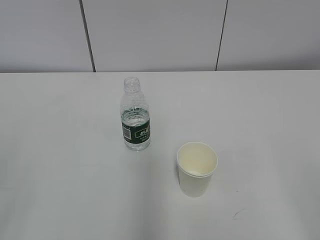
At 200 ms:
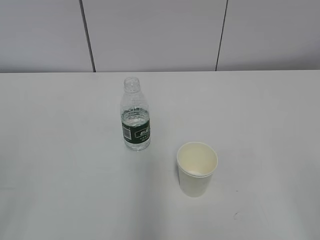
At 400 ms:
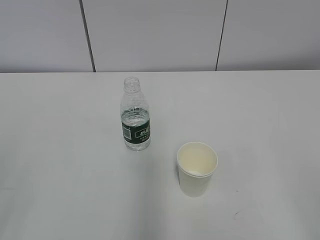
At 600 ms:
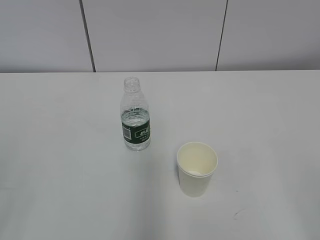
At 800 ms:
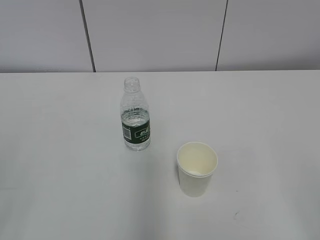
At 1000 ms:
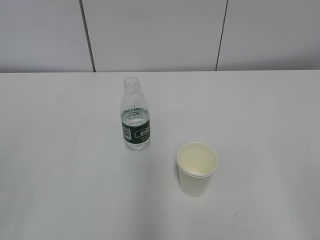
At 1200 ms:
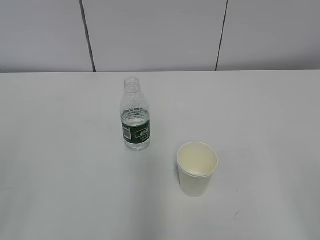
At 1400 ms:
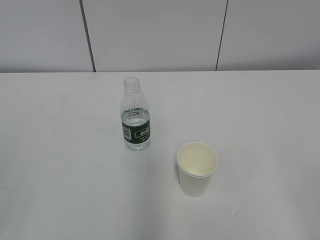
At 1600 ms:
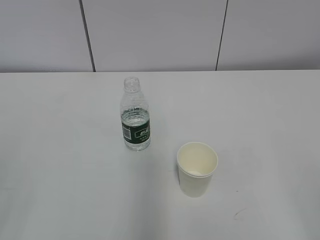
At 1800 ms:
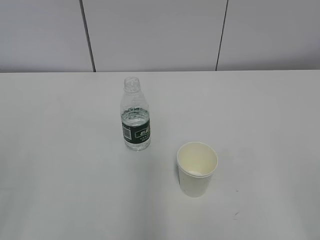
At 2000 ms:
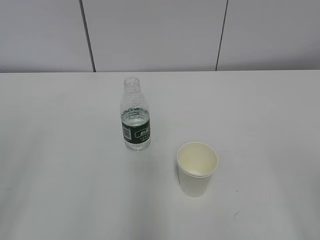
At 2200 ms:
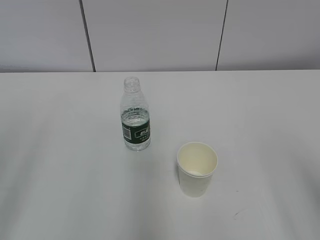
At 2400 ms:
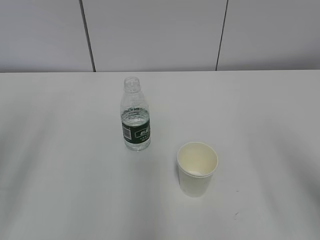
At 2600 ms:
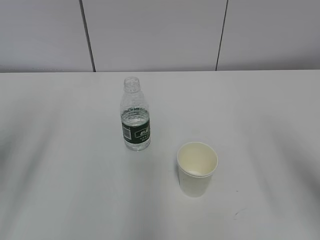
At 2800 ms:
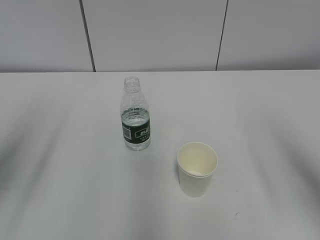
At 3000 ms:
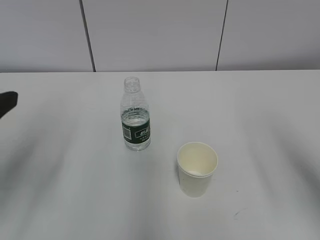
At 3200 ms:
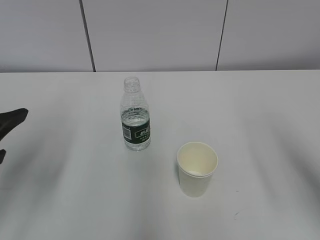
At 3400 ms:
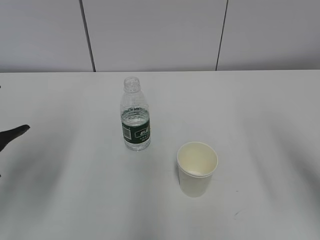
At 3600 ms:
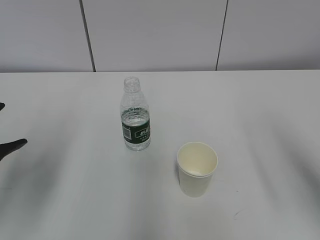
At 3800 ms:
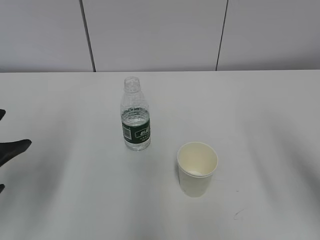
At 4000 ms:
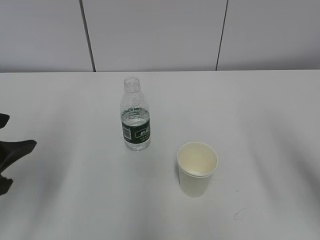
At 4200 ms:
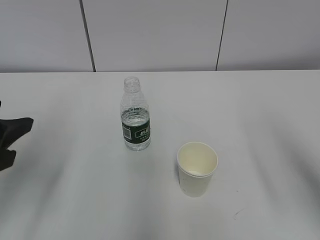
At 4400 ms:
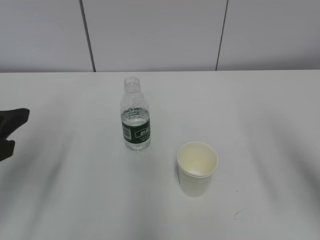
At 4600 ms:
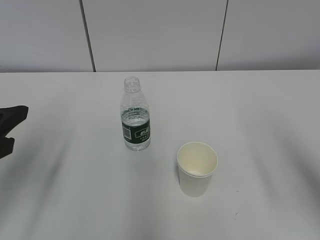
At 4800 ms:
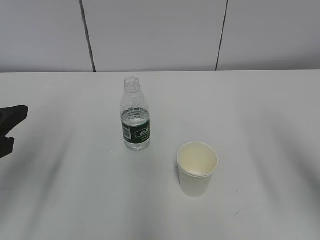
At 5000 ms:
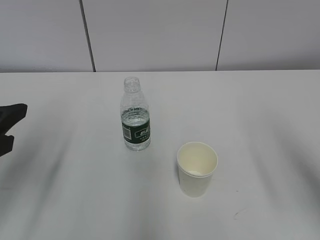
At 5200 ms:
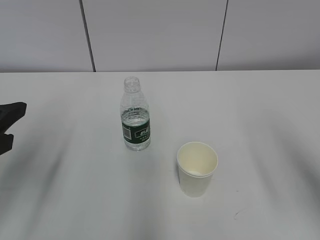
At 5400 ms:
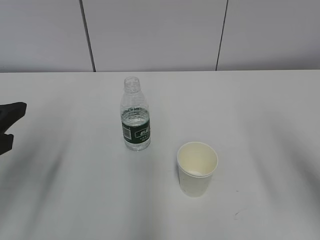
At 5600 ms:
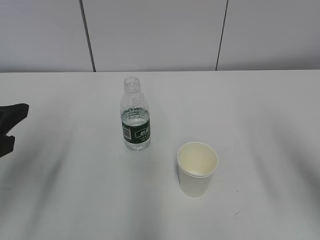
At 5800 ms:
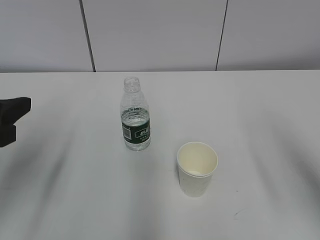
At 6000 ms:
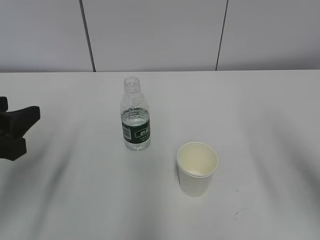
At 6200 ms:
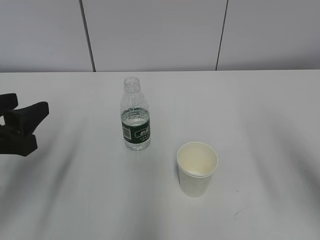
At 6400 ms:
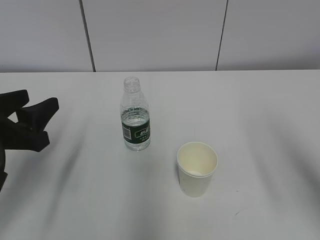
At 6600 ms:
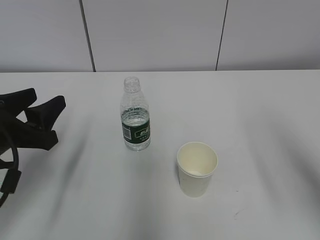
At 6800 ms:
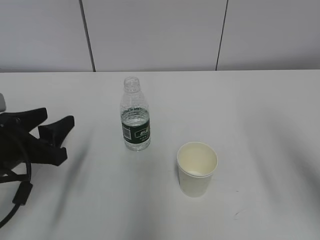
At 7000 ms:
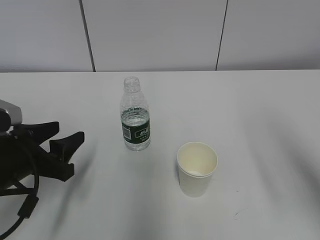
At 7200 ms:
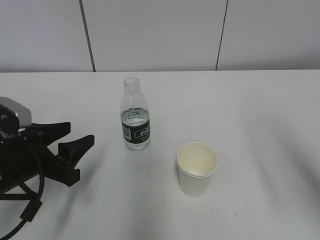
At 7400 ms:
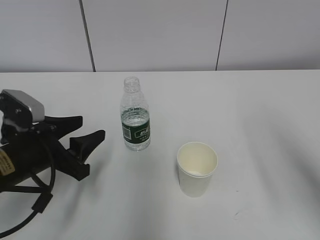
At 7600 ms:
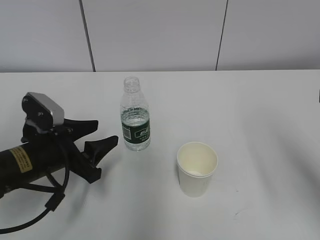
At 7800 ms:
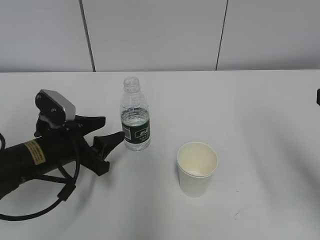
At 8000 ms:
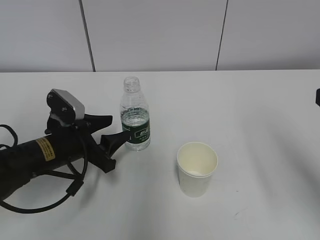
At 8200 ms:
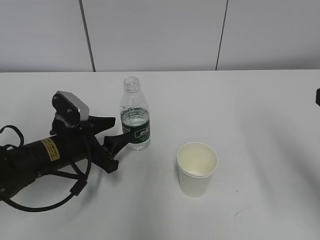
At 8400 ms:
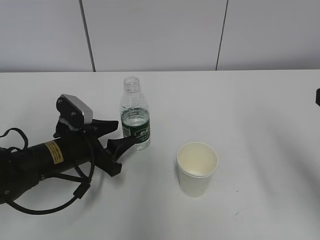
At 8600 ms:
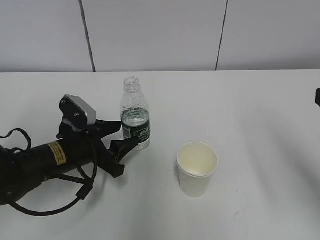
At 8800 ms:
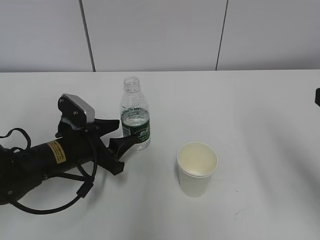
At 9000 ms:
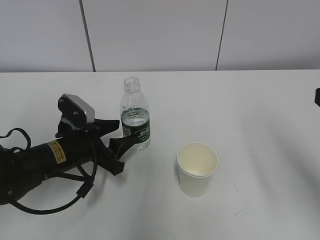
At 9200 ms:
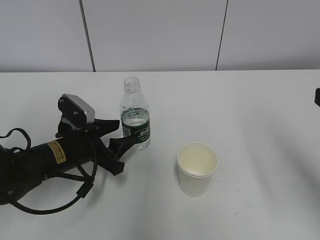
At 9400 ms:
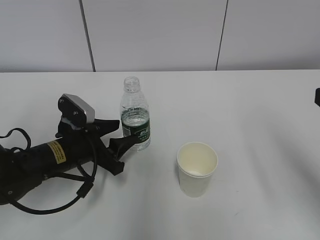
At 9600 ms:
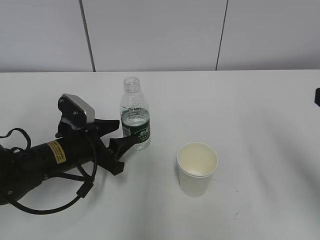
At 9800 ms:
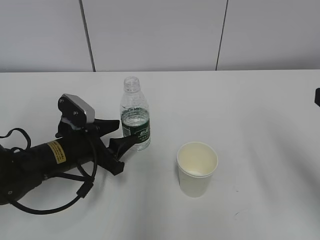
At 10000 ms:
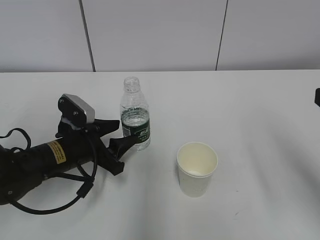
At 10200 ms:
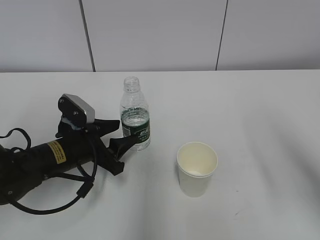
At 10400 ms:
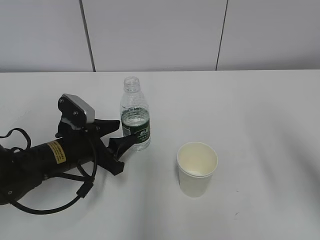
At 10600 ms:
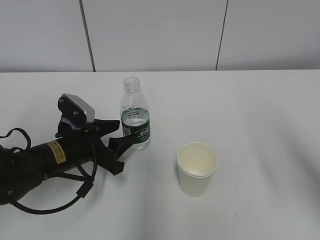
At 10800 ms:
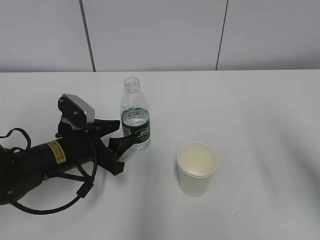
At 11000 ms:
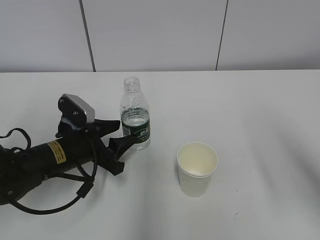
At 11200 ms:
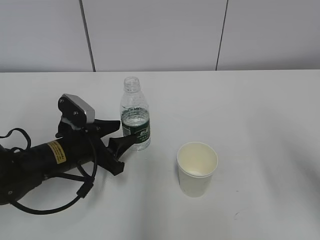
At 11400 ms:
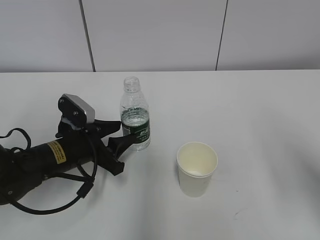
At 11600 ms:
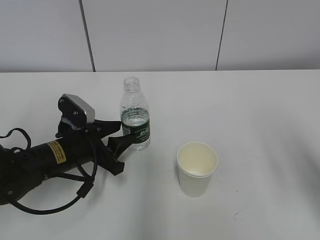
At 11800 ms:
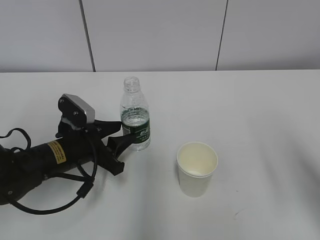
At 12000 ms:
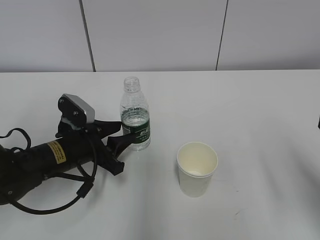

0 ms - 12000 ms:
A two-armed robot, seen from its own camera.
1600 ms - 3000 ms: Both grippers travel together forward, about 15 cm. The left gripper opens.
4400 ms - 6000 ms: The grippers move only a little.
6000 ms - 7600 ms: The left gripper heads downward, forward and to the right, covering roughly 15 cm.
7600 ms - 9000 ms: The left gripper changes place by approximately 5 cm.

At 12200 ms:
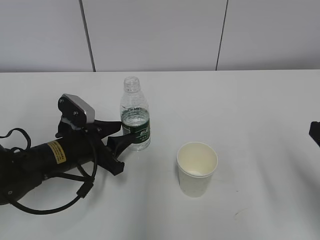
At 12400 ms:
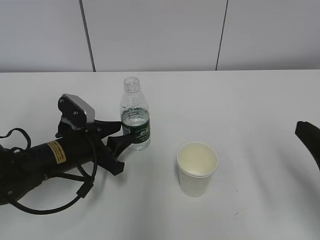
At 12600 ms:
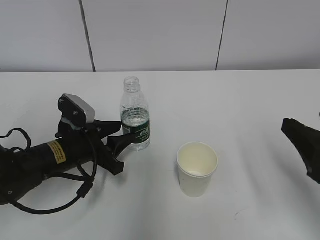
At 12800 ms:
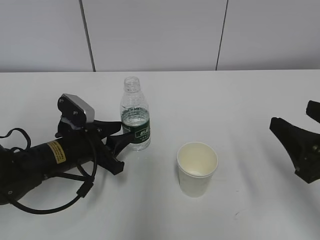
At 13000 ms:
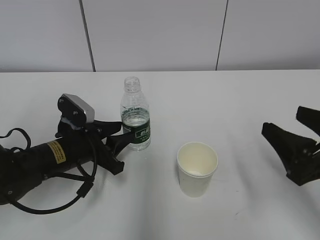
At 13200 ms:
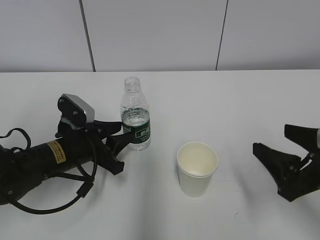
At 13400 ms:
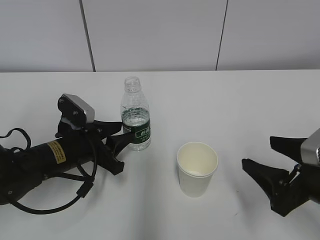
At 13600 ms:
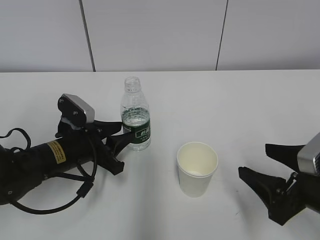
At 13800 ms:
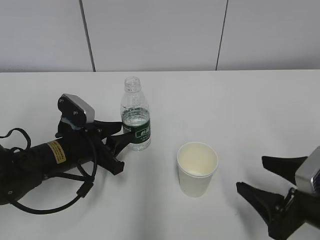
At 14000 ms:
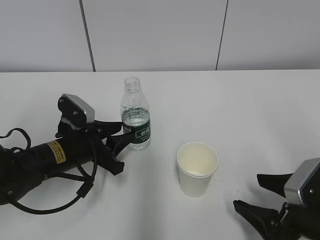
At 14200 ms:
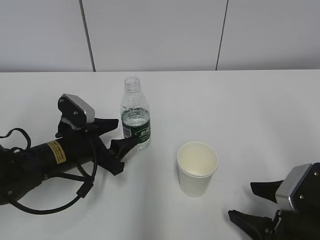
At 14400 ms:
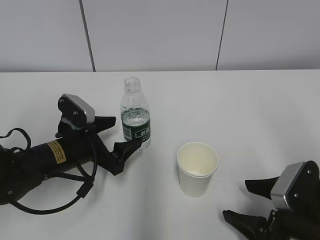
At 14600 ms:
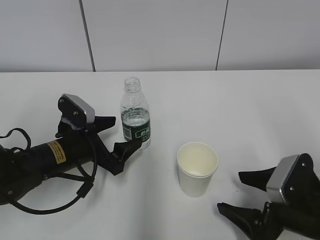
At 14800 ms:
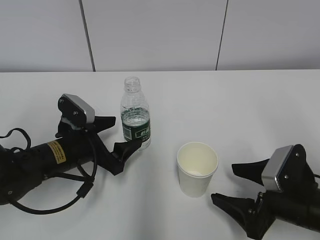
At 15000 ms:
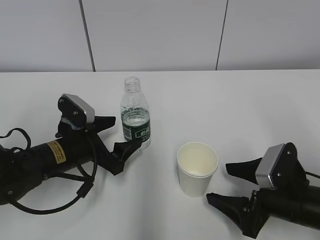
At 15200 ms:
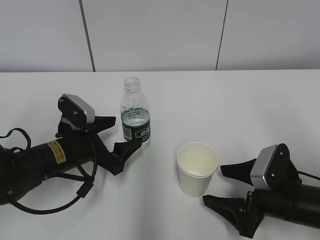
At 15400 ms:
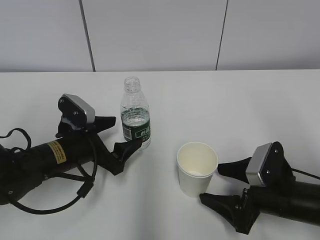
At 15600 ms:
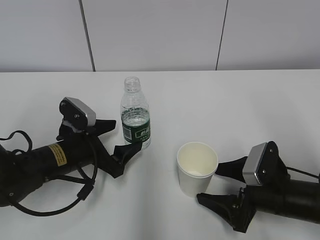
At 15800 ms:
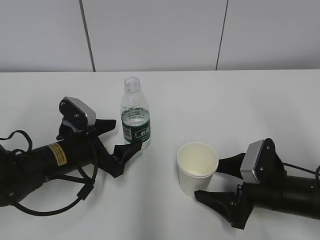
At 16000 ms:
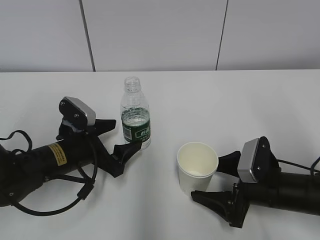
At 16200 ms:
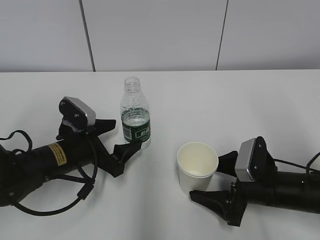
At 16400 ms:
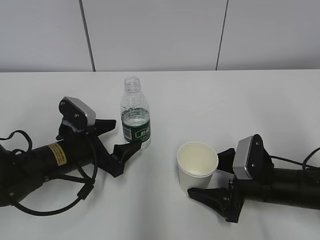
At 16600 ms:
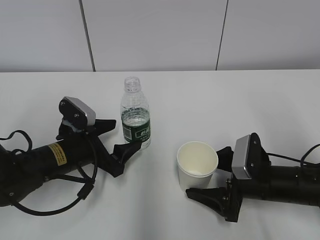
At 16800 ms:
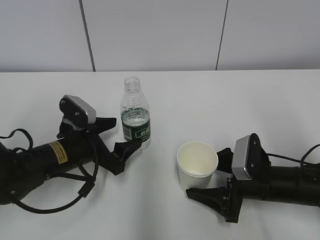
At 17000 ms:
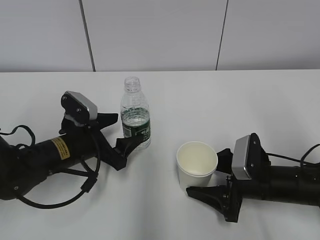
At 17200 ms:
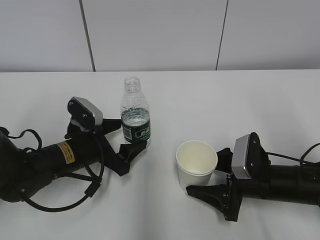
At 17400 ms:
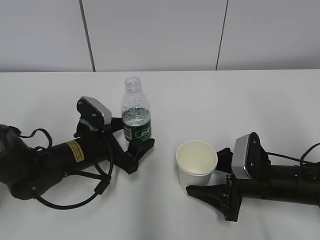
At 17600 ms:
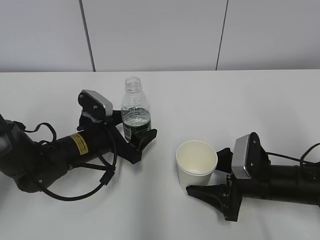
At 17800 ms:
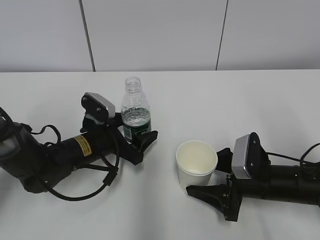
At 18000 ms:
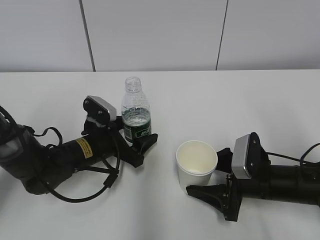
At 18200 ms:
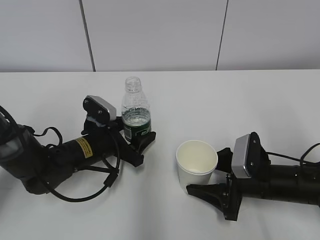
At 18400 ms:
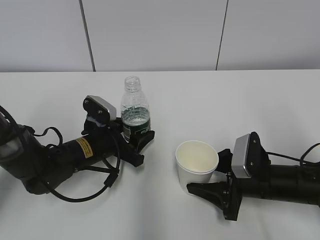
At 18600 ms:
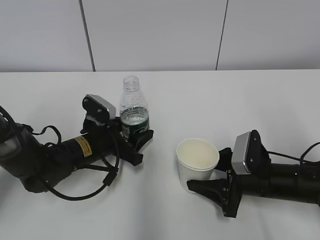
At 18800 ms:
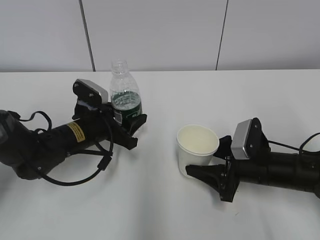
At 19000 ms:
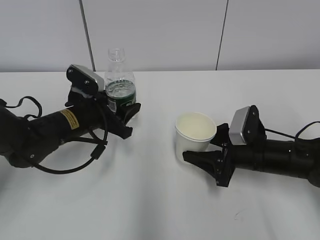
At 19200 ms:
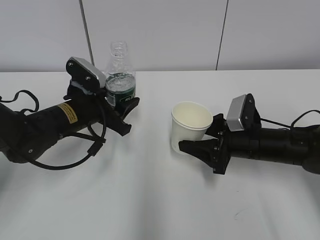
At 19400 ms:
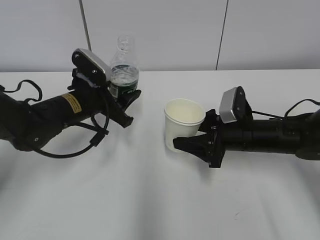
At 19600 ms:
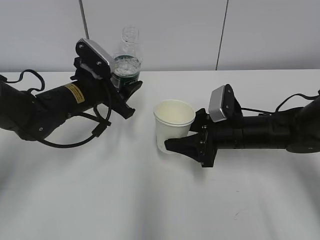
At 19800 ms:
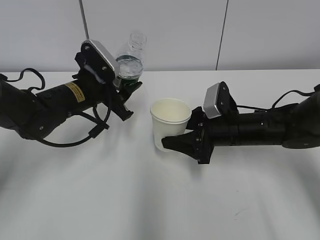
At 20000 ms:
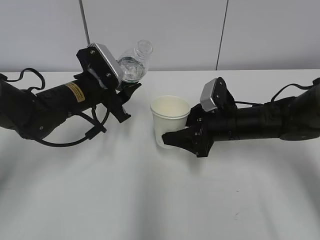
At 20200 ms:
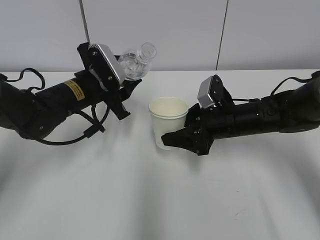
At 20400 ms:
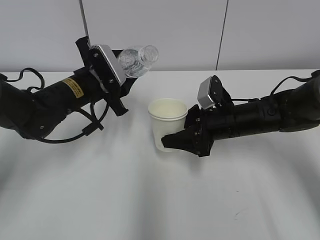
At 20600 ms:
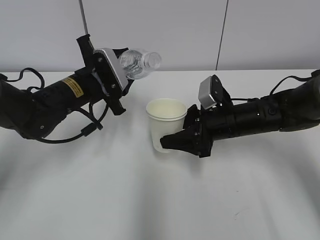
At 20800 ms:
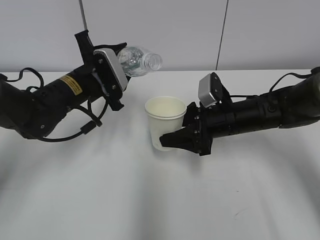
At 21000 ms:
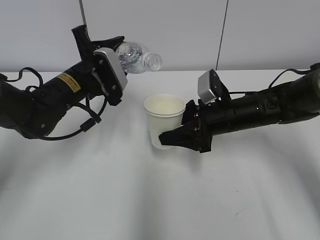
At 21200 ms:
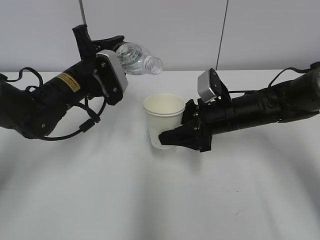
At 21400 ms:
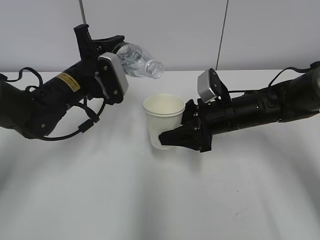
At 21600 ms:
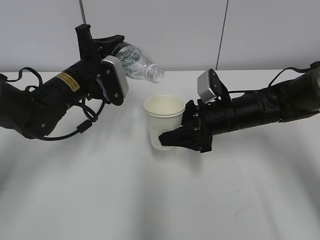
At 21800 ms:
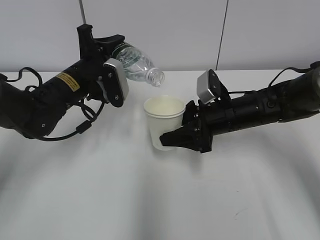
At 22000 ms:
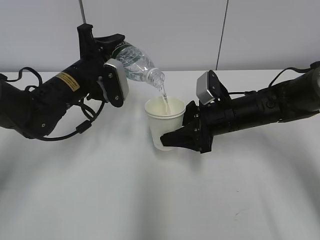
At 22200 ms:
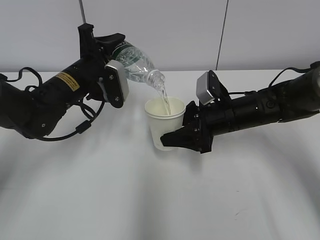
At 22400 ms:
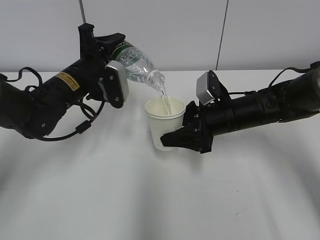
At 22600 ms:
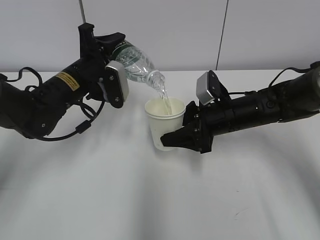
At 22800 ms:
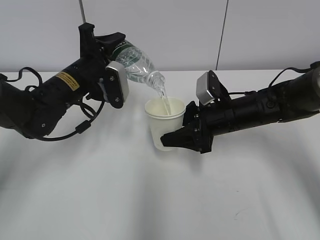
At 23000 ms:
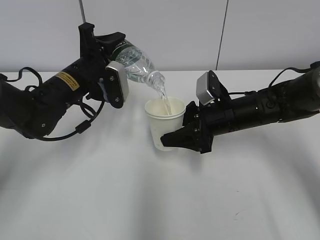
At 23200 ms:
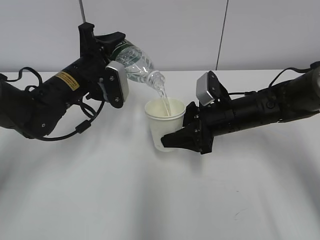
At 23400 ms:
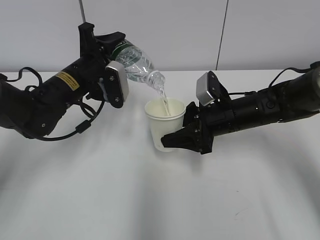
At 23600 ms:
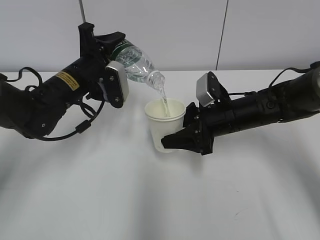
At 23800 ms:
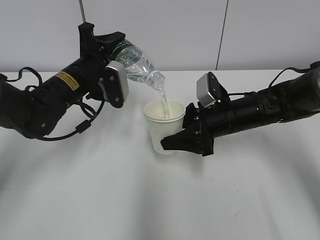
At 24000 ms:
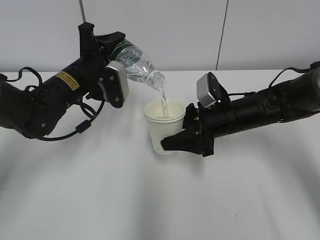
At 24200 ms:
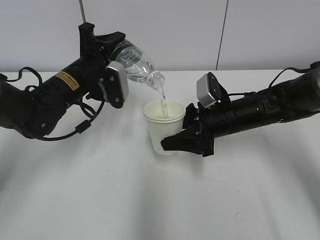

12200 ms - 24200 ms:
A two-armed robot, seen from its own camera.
Step, 12200 ms - 15400 ms: Grab the paper cup with the right hand.
Step, 15600 ms - 18000 ms: Lift the paper cup with the right hand.
Step, 18200 ms - 21600 ms: Fill water with the right hand.
Step, 18200 ms - 21600 ms: Pour water with the left hand.
12200 ms - 13800 ms: The right gripper moves downward, some 10 cm.
13800 ms - 15200 ms: The right gripper is displaced downward by roughly 5 cm, and opens up; the left gripper opens.
15200 ms - 16600 ms: The right gripper is displaced forward by about 5 cm.
16600 ms - 18200 ms: The right gripper closes up. The left gripper moves roughly 5 cm.
18200 ms - 19800 ms: The right gripper goes about 10 cm forward and upward, and closes, while the left gripper moves upward, about 10 cm.
21200 ms - 22600 ms: The grippers make only small movements.
22600 ms - 24200 ms: Both grippers stay about where they are.
